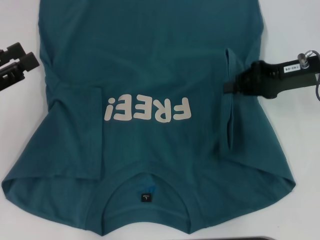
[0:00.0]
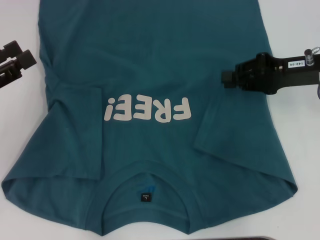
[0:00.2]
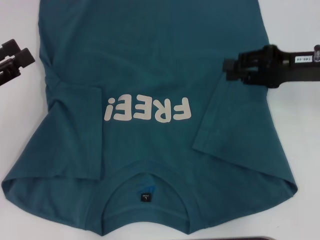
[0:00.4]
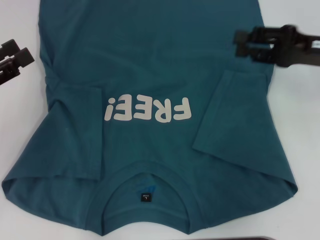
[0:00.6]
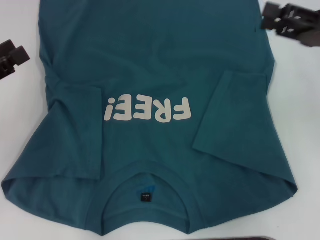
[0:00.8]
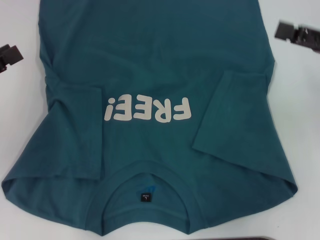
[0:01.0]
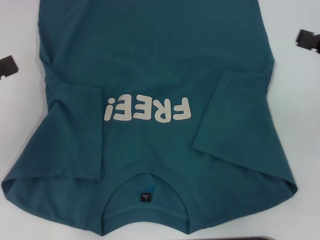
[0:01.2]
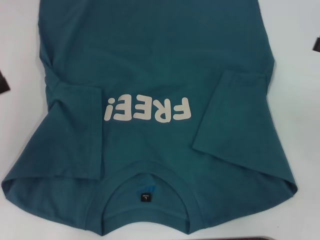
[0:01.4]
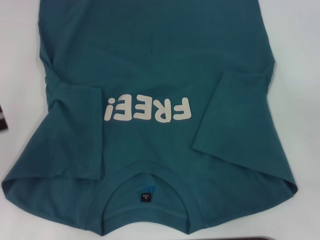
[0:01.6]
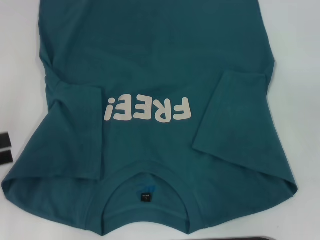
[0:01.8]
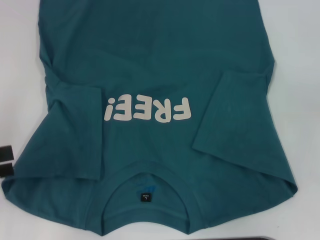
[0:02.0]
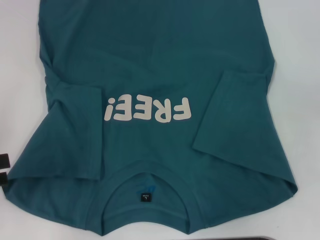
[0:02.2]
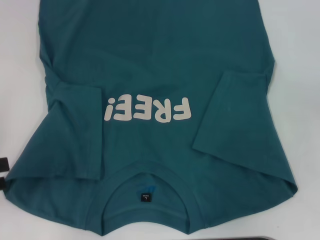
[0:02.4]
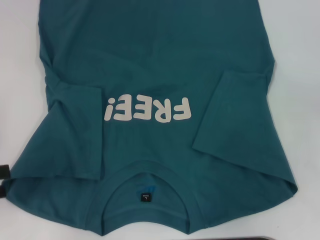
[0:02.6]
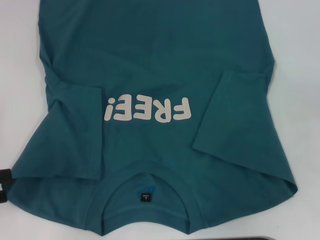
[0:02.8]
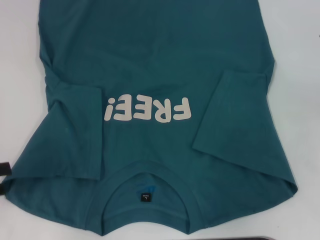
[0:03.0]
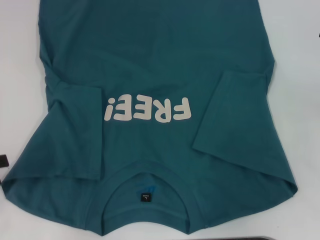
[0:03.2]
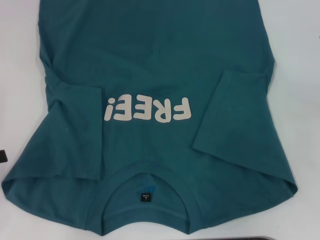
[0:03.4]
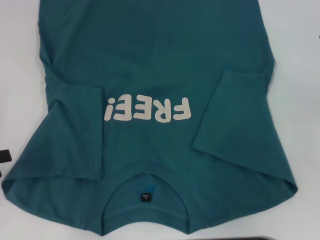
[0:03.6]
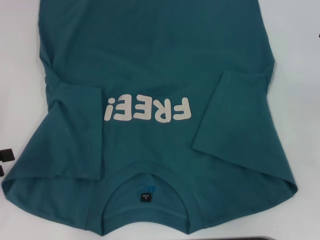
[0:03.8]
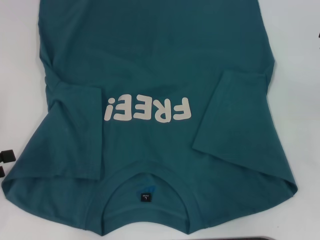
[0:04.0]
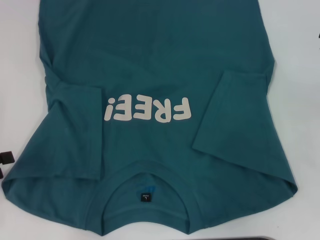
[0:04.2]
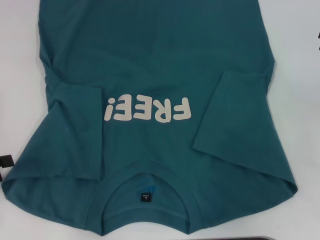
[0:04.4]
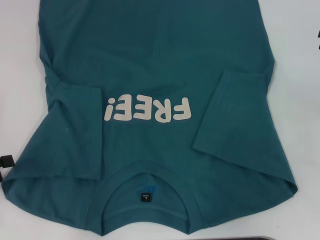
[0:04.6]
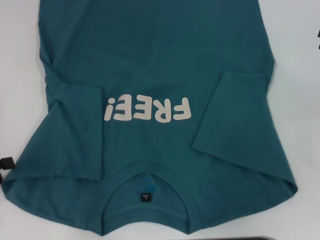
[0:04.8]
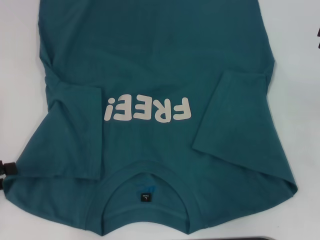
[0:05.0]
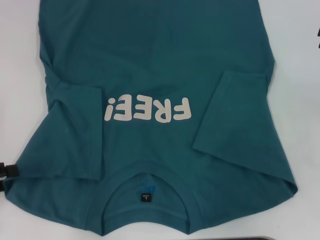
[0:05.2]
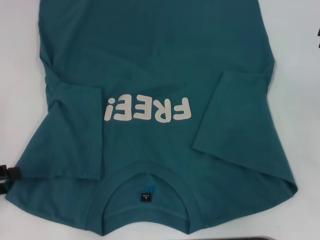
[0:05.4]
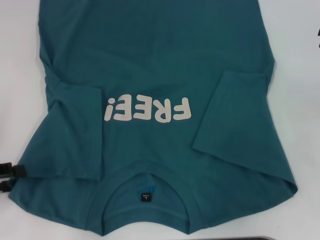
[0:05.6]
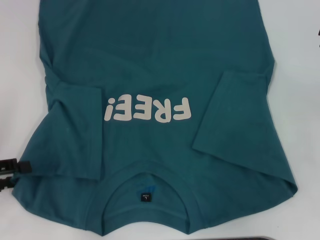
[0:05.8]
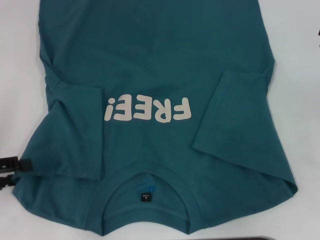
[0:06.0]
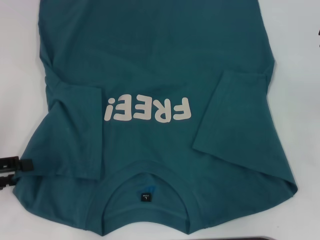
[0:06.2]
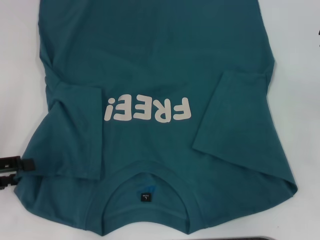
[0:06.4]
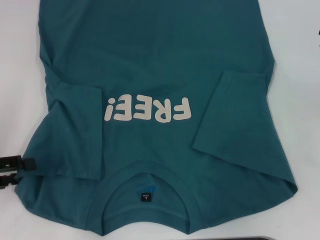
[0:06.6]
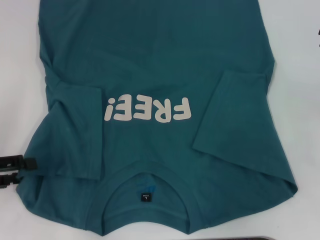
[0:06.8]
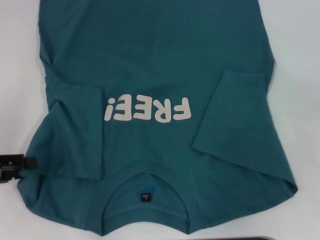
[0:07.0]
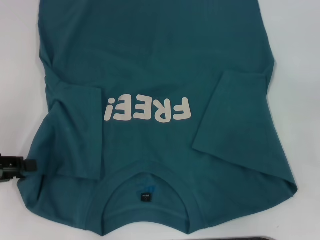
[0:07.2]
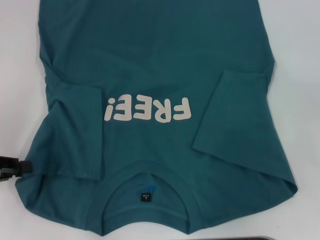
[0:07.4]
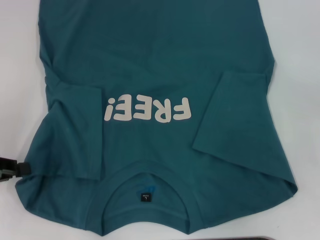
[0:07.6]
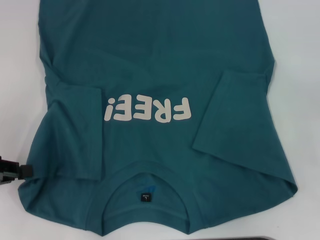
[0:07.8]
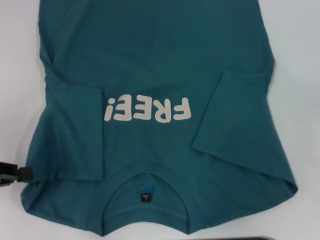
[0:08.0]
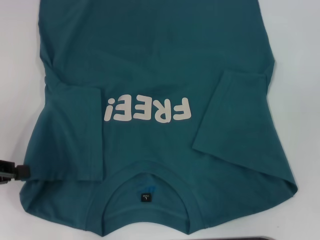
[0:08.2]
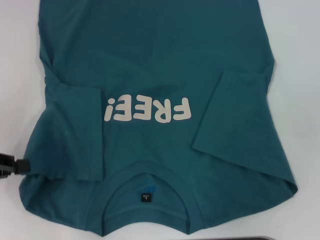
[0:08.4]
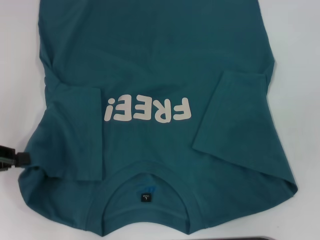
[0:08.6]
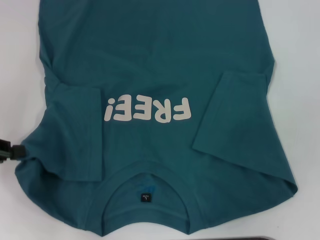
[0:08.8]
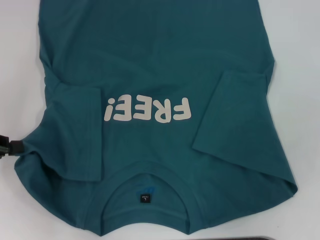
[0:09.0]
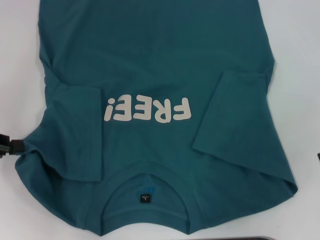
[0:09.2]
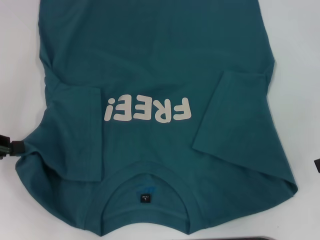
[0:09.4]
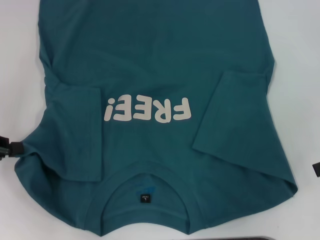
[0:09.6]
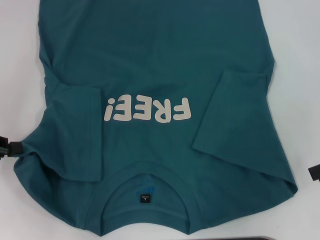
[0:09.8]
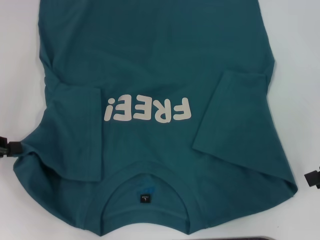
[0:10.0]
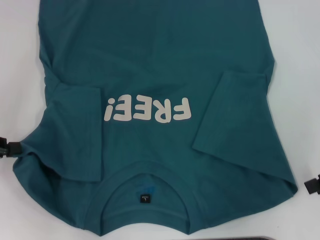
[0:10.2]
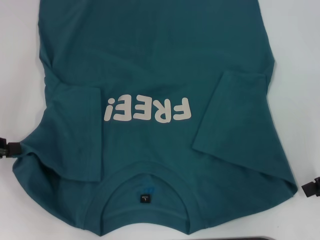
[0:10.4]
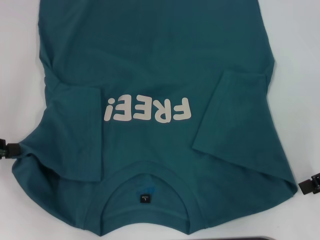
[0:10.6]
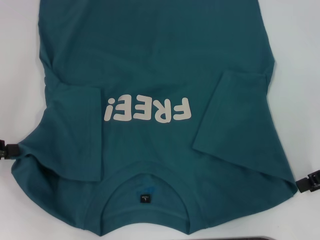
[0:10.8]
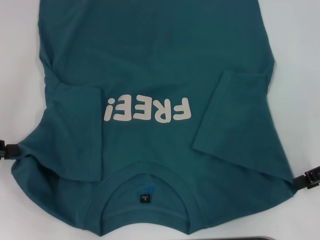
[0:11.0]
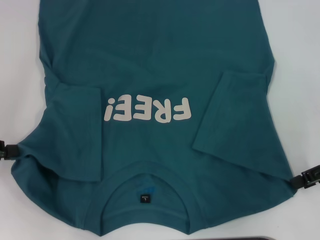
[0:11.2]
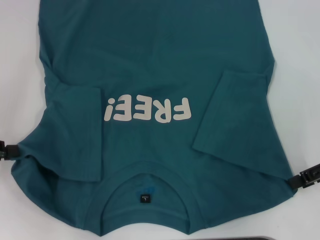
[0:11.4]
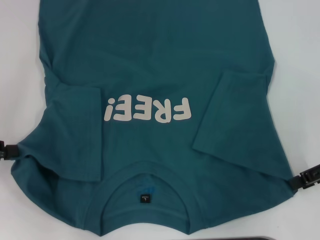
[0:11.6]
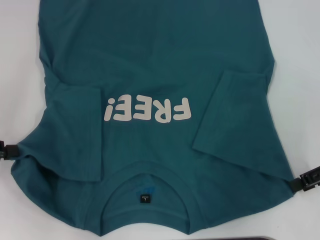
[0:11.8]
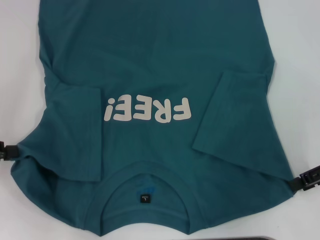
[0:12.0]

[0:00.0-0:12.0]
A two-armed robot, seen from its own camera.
Step, 0:00.4 to 0:07.8: Grab the bottom left corner with your left hand.
0:00.0 to 0:01.6: The left gripper ends up about 5 cm from where it was. Meanwhile the right gripper goes some 15 cm to the right and backward, and opens.
0:04.4 to 0:06.0: The grippers move only a little.
0:06.0 to 0:07.6: The left gripper closes up.
0:10.4 to 0:12.0: The grippers move only a little.

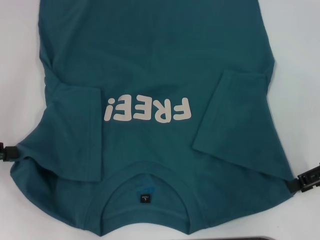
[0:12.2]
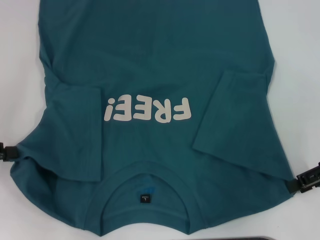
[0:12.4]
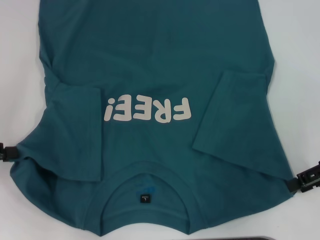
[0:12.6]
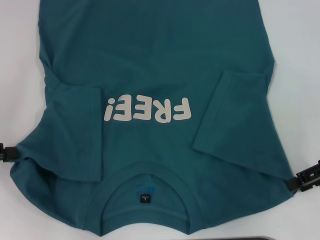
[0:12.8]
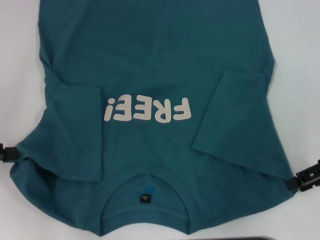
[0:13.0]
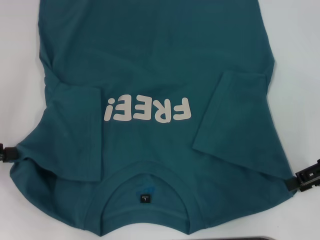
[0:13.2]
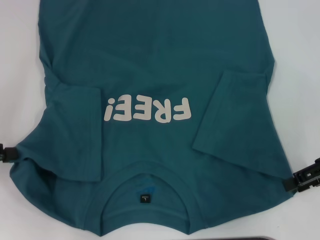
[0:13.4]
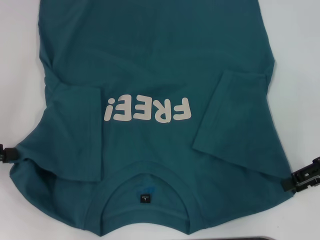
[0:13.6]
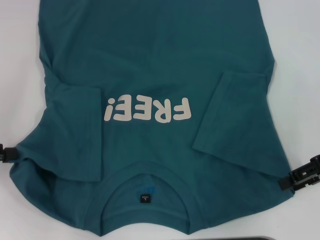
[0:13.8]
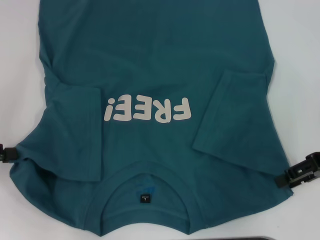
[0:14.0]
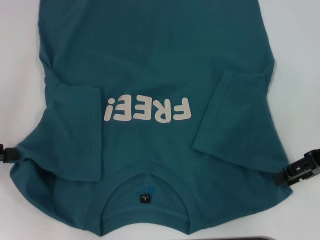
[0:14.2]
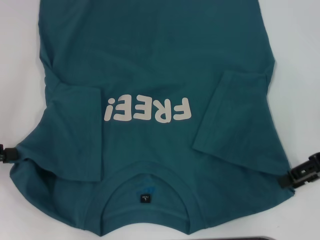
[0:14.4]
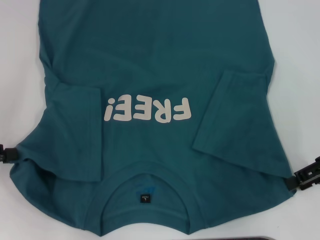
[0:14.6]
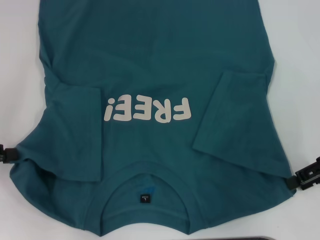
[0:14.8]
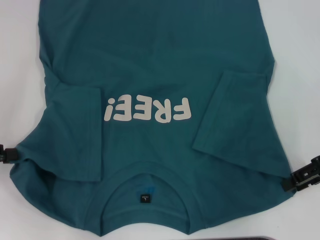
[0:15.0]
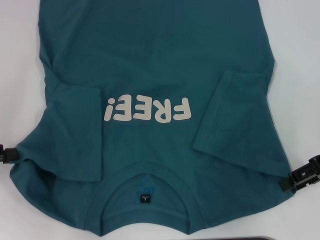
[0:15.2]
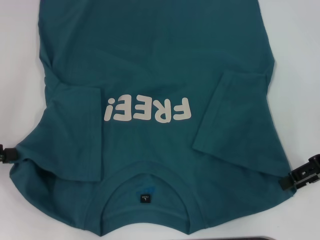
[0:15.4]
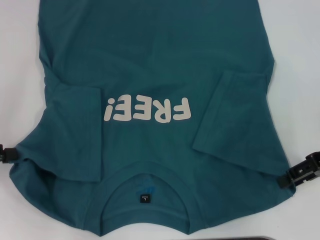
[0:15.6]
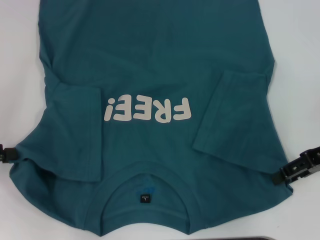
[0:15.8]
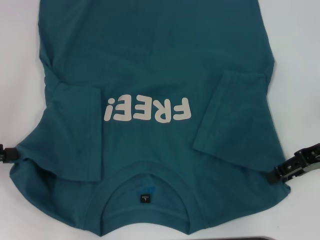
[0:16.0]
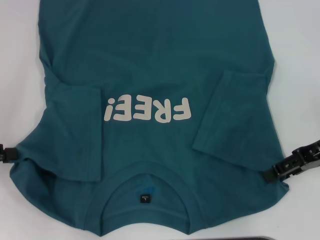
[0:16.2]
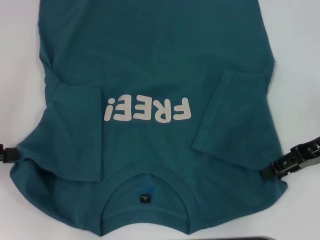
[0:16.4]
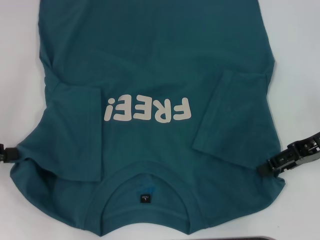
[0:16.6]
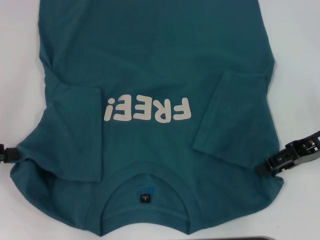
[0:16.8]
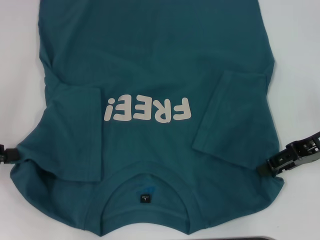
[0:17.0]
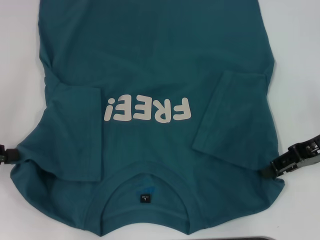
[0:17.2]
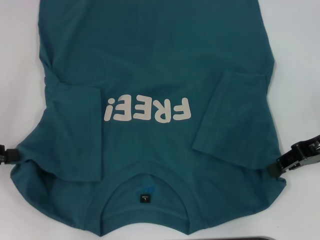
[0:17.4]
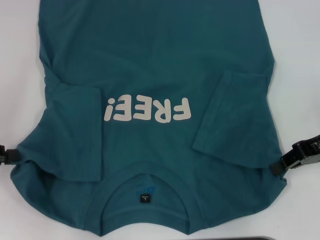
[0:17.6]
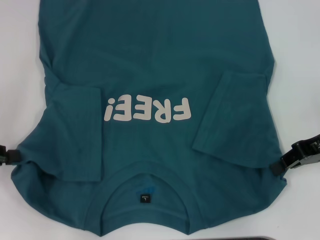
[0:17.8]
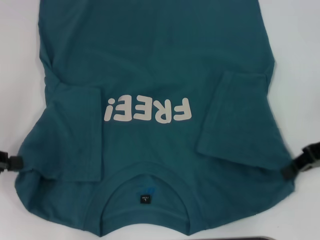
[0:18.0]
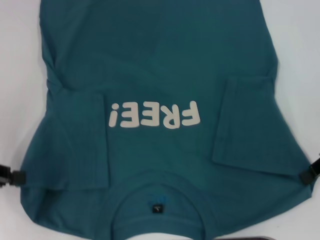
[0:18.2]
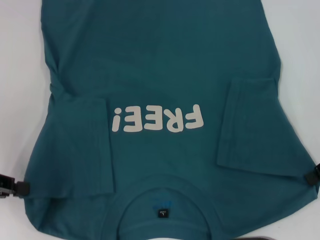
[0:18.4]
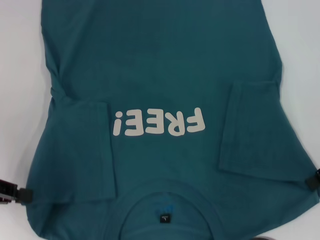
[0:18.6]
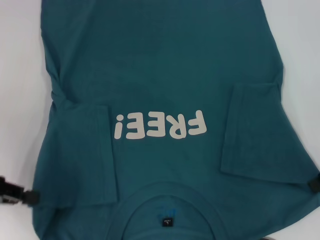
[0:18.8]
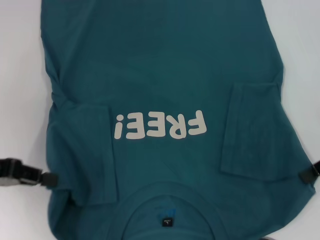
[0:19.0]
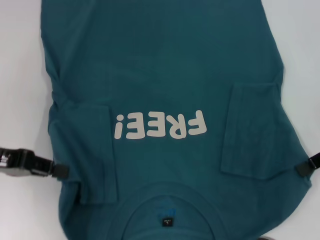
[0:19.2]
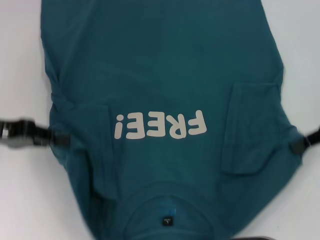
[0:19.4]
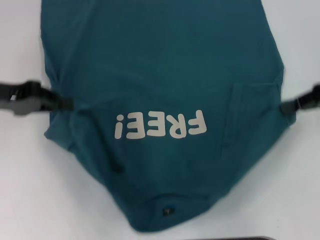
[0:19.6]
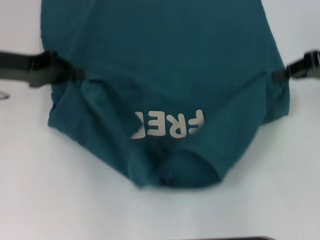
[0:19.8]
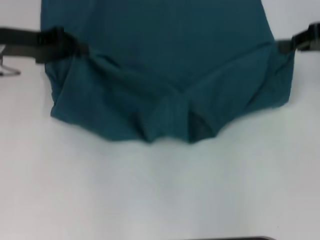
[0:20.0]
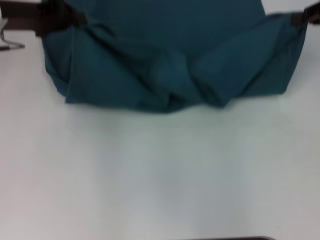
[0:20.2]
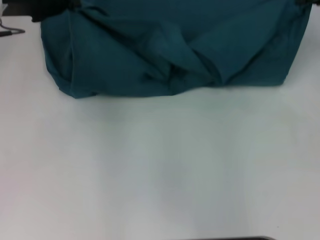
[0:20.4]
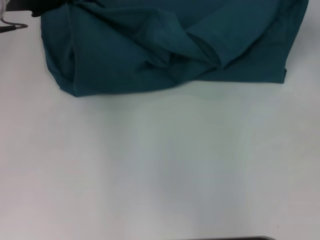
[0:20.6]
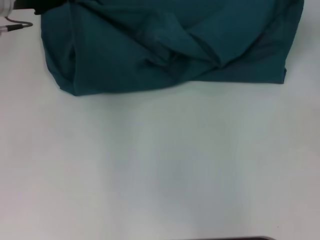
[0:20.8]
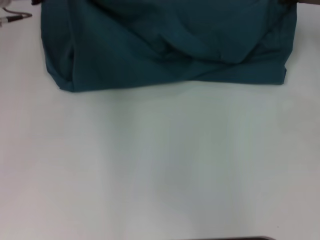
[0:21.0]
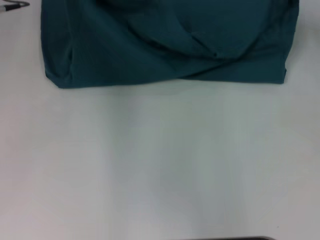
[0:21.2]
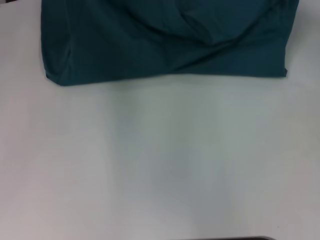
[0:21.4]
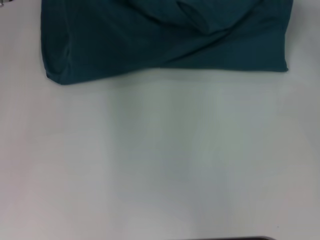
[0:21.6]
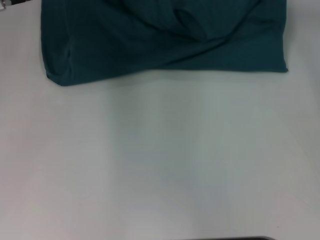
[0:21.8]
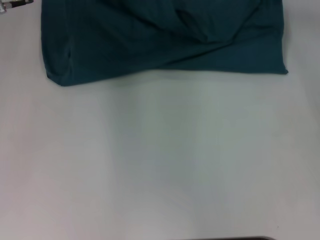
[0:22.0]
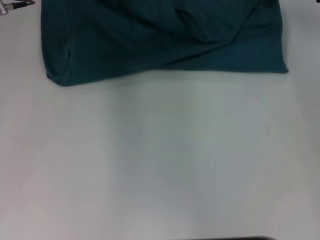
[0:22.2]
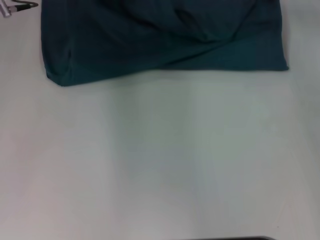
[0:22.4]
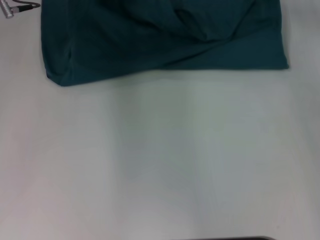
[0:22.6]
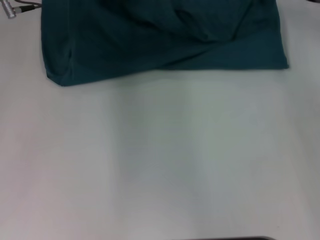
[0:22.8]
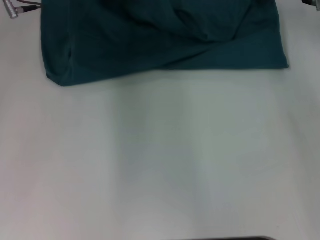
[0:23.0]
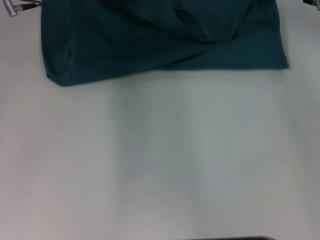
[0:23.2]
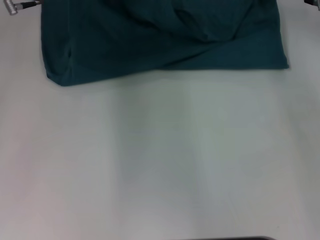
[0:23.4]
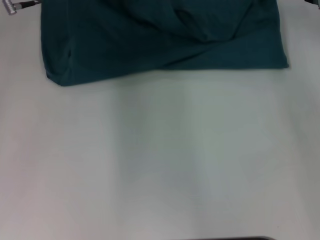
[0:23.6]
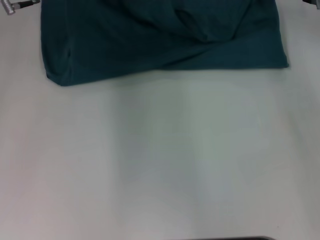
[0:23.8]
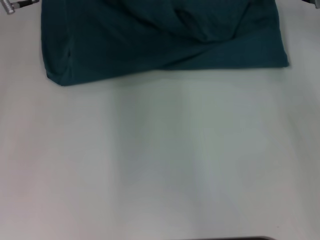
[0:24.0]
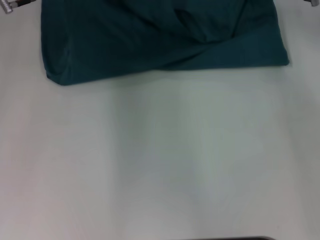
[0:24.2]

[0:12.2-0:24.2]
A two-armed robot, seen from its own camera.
Step, 0:12.2 to 0:17.8: Grab the bottom right corner with your right hand.
Step, 0:18.0 to 0:22.0: Fold the clothes to the left.
Step, 0:18.0 to 0:22.0: Fold the clothes to the right.
0:12.2 to 0:13.8: The two grippers keep their place.
0:13.8 to 0:15.2: The two grippers keep their place.
0:15.2 to 0:16.6: There are only small adjustments of the grippers.
0:16.6 to 0:18.2: The right gripper closes up.
0:18.2 to 0:19.8: The right gripper shifts about 10 cm forward and upward. Meanwhile the left gripper heads forward and to the right, covering approximately 15 cm.
0:19.8 to 0:21.2: Both grippers travel together forward, some 10 cm.
0:21.2 to 0:22.6: The right gripper travels to the left by approximately 5 cm.
0:22.6 to 0:24.2: There are only small adjustments of the grippers.
